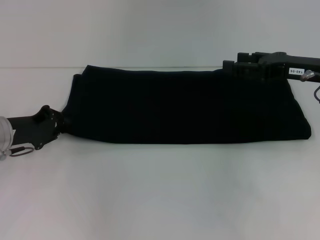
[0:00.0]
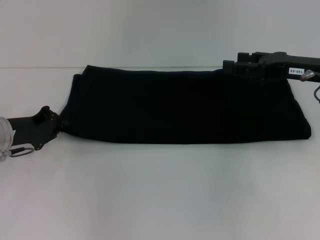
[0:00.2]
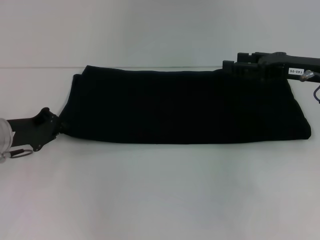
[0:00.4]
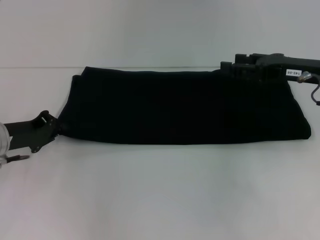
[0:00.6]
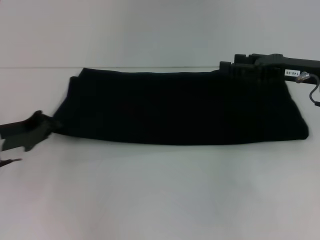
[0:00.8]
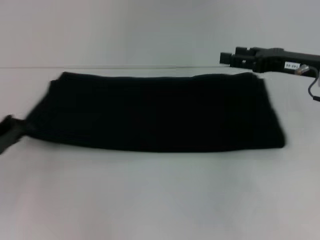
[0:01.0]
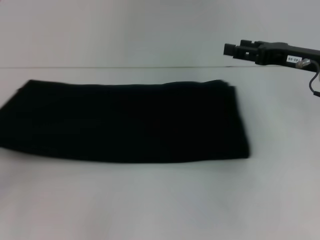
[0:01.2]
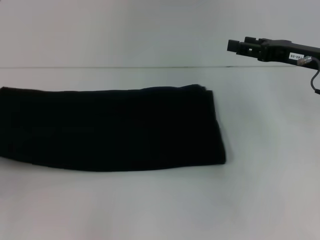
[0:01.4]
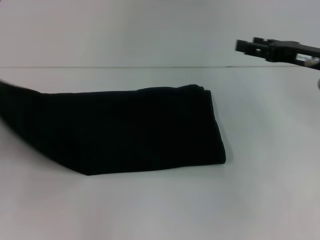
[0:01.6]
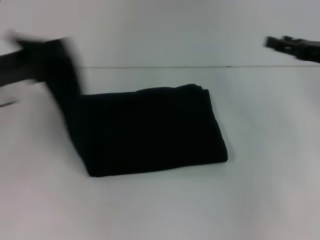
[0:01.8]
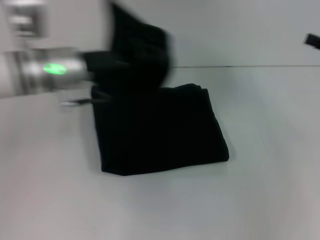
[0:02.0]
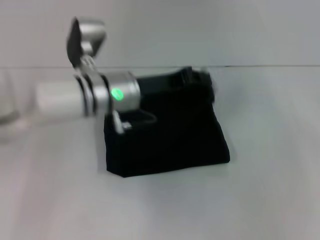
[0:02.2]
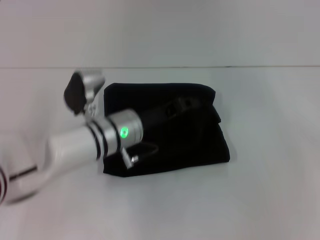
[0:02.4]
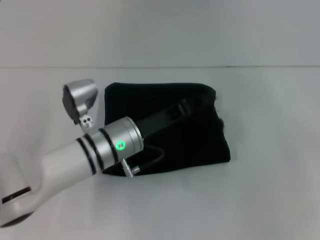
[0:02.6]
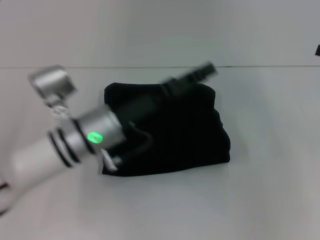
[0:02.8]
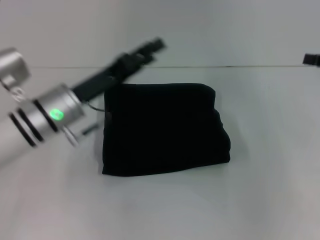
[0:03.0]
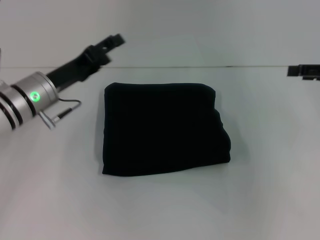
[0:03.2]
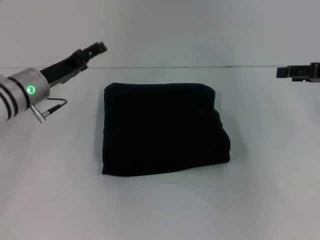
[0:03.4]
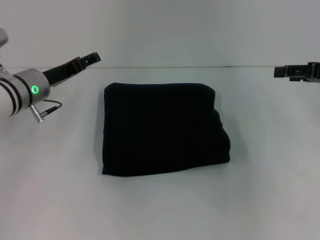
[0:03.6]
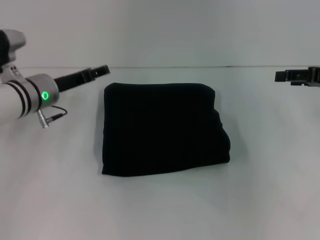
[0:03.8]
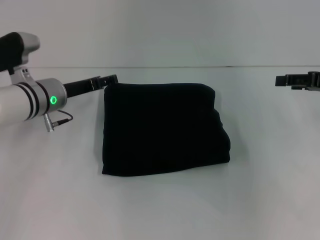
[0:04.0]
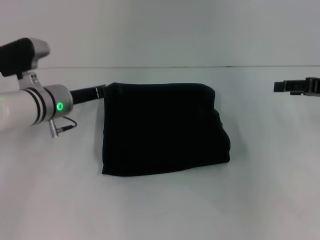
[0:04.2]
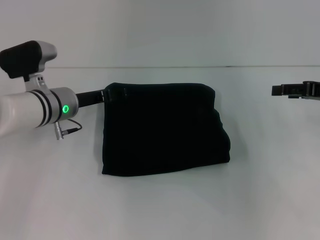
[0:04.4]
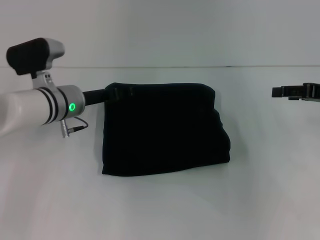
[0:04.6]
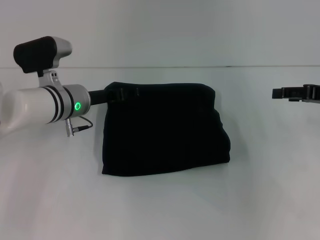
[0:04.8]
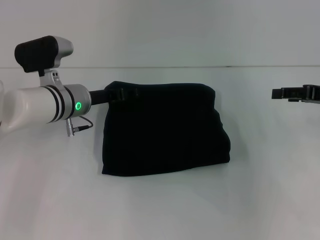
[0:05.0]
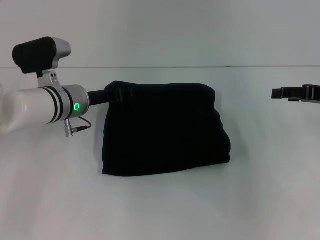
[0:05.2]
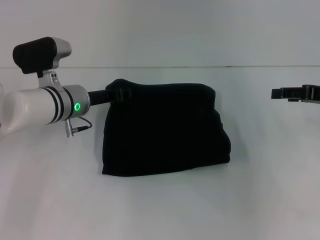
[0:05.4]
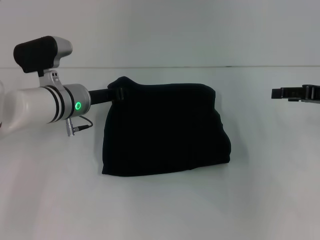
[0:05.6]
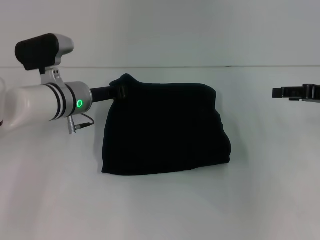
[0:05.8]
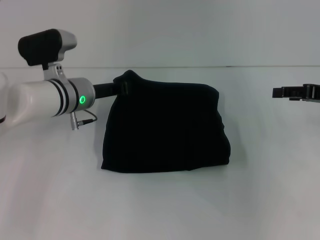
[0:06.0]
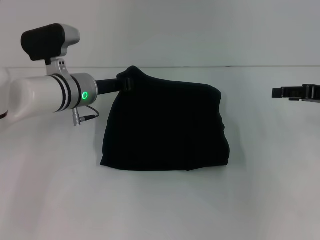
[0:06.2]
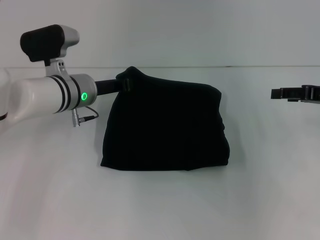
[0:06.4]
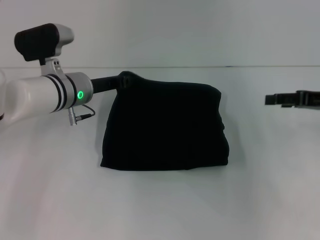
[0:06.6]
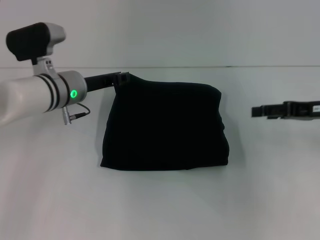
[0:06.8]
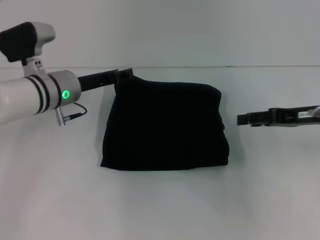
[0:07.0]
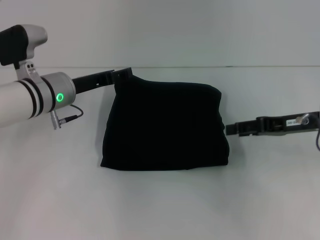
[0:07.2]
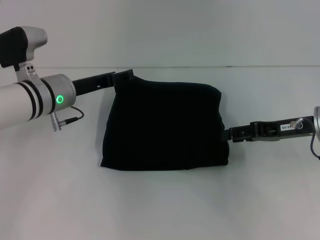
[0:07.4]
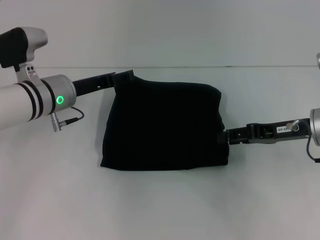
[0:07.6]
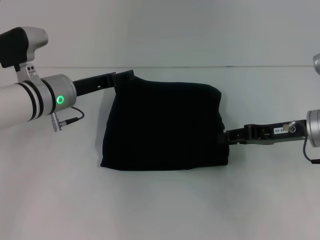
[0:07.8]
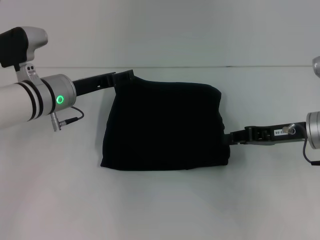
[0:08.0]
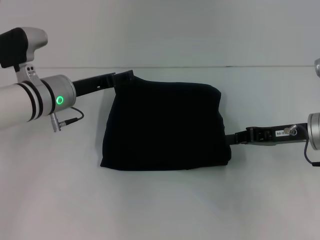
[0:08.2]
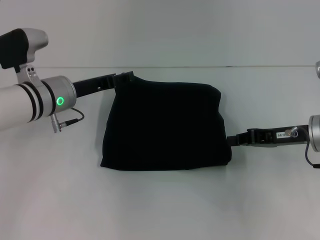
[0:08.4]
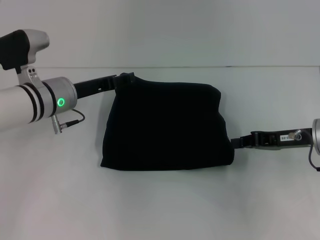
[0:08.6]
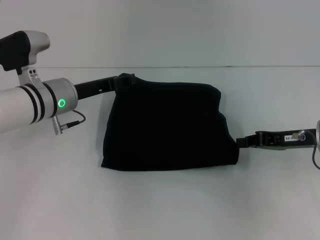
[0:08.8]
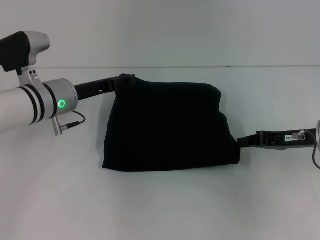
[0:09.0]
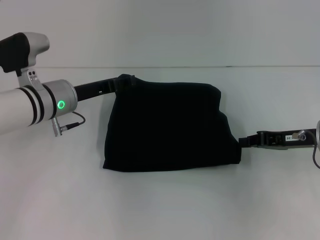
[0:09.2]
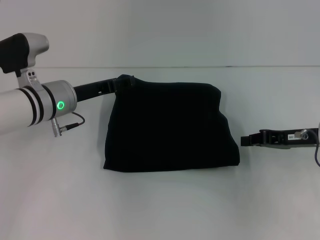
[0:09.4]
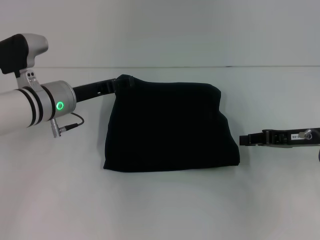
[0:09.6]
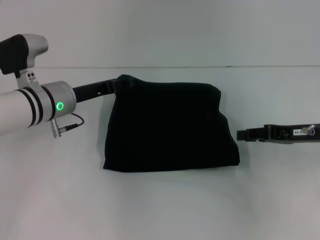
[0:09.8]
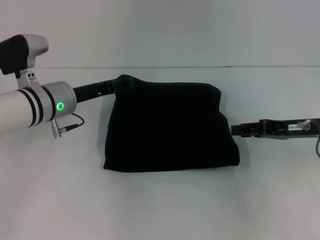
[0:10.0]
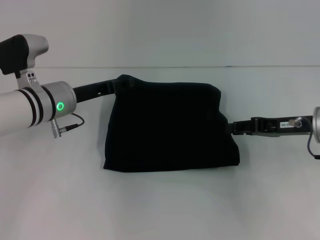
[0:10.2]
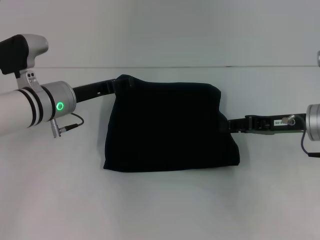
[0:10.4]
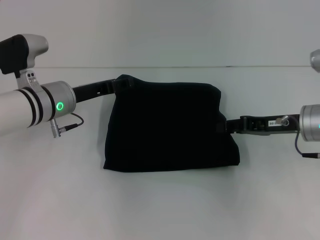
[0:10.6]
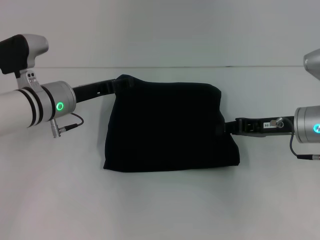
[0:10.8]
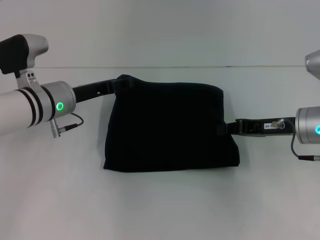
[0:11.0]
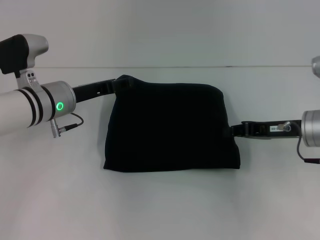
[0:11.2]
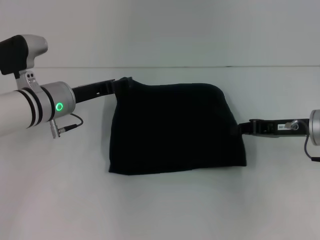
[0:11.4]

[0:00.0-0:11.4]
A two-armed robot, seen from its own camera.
Step, 0:00.0 to 0:02.6: Fold the clothes with your left hand.
0:00.0 to 0:01.4: The left gripper moves to the left and backward, approximately 15 cm, and closes its fingers.
0:01.4 to 0:02.8: The left gripper moves to the right, about 30 cm; the right gripper moves to the right, roughly 10 cm.
0:02.8 to 0:04.2: The right gripper changes place by roughly 5 cm. Meanwhile the left gripper heads forward and to the left, covering approximately 10 cm, and opens its fingers.
0:04.2 to 0:05.6: The left gripper closes its fingers.
0:05.6 to 0:07.2: The left gripper closes and opens again; the right gripper goes approximately 5 cm to the left.
0:07.2 to 0:08.6: The right gripper closes its fingers.
0:08.6 to 0:10.0: The right gripper opens up.
0:10.0 to 0:11.4: The right gripper closes.

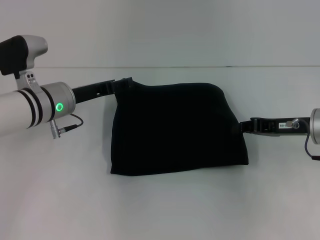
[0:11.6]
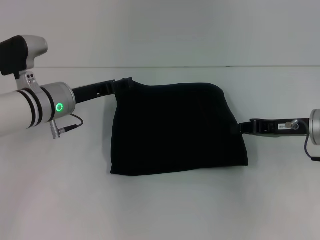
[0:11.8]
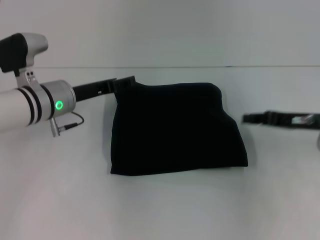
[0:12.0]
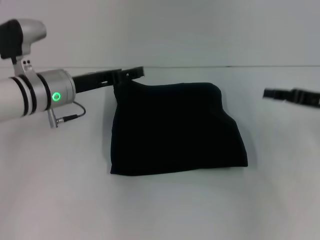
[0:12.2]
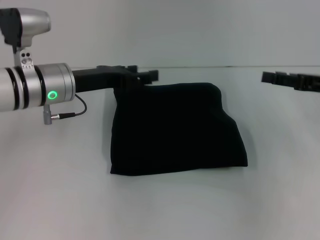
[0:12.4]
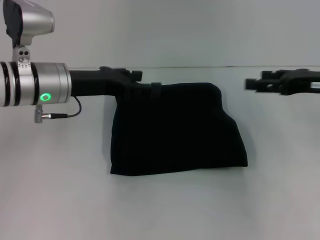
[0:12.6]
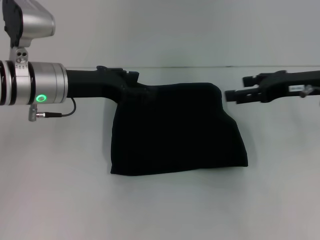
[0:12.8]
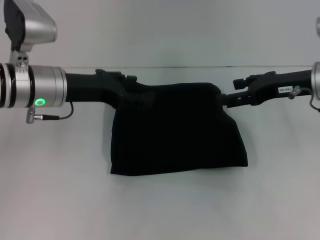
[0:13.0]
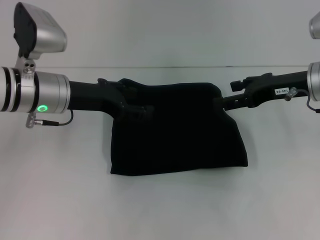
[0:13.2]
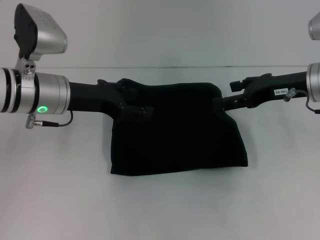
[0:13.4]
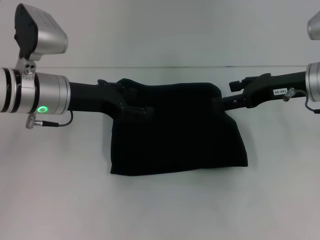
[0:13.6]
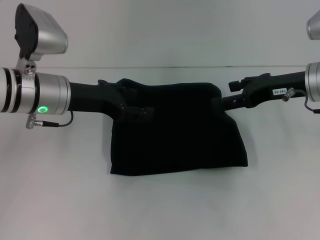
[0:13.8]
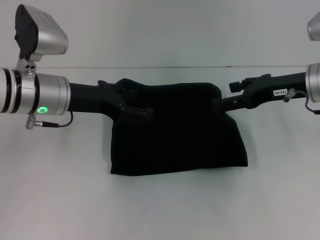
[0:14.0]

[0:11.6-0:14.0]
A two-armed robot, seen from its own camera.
0:11.6 to 0:12.8: Both grippers move upward, about 5 cm. The right gripper opens.
0:12.8 to 0:14.0: The grippers move only a little.

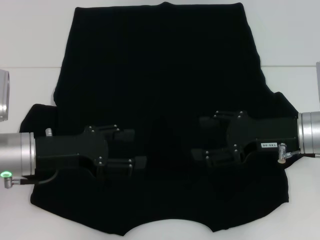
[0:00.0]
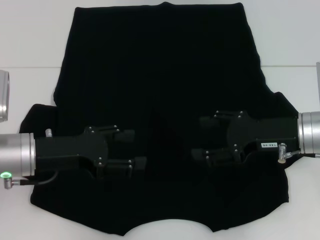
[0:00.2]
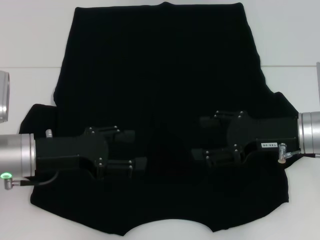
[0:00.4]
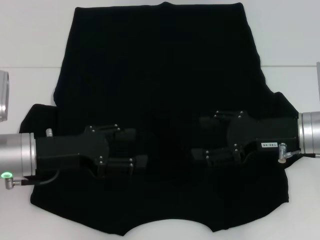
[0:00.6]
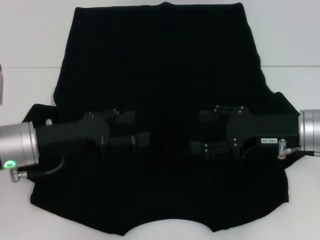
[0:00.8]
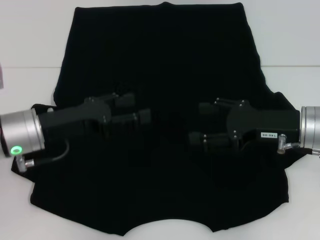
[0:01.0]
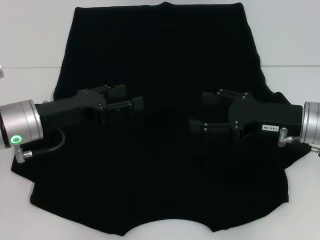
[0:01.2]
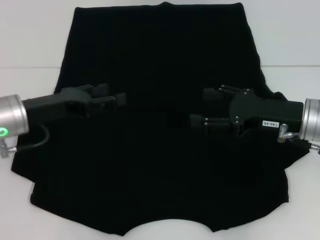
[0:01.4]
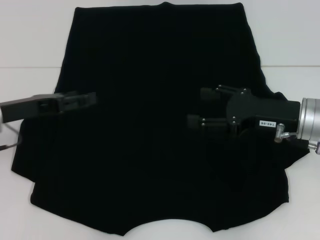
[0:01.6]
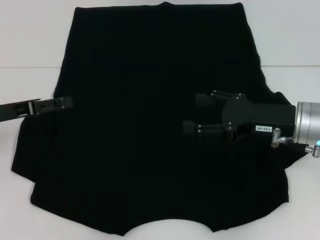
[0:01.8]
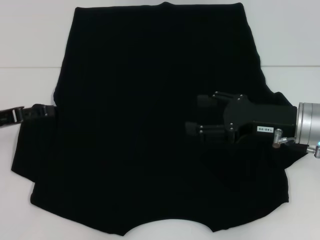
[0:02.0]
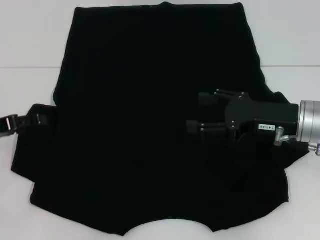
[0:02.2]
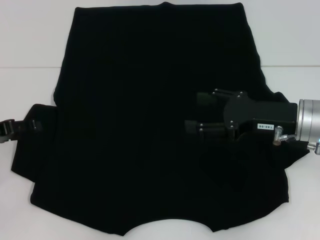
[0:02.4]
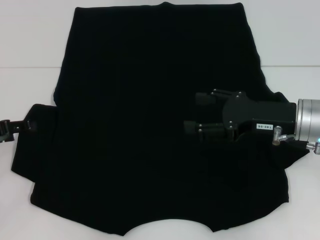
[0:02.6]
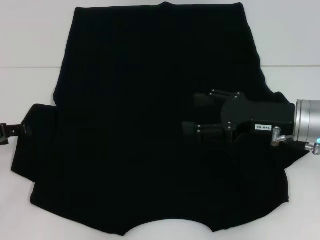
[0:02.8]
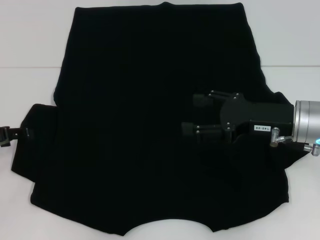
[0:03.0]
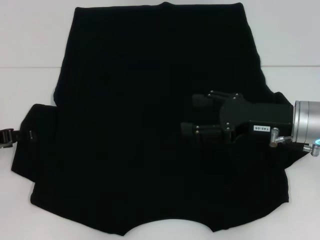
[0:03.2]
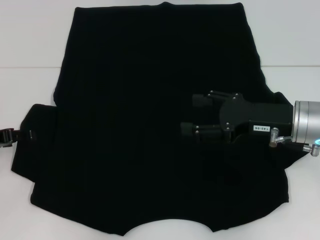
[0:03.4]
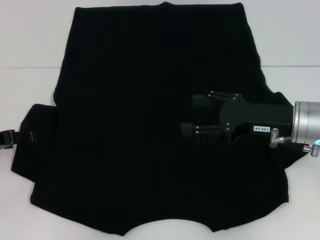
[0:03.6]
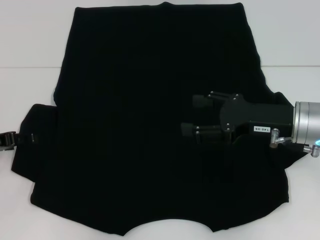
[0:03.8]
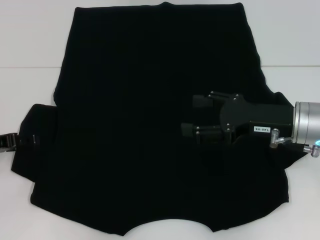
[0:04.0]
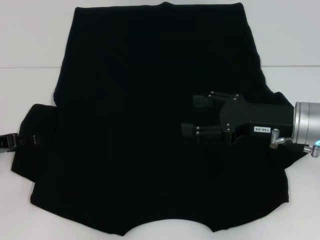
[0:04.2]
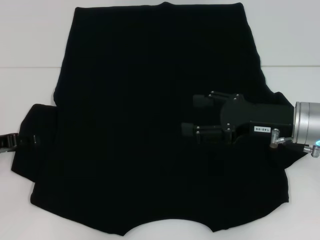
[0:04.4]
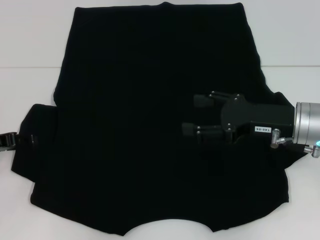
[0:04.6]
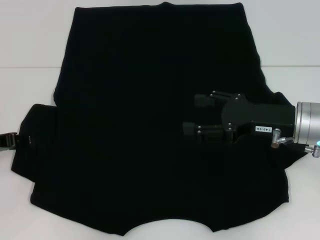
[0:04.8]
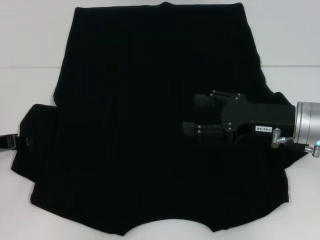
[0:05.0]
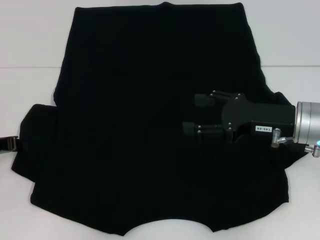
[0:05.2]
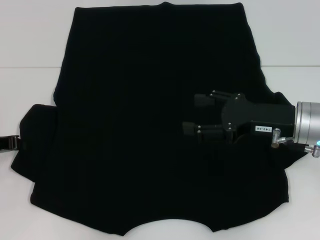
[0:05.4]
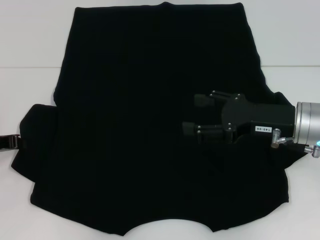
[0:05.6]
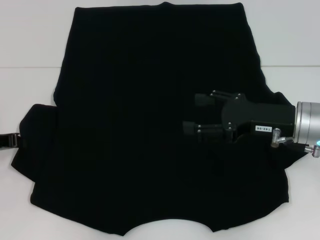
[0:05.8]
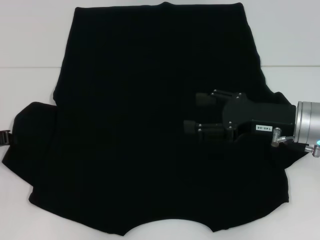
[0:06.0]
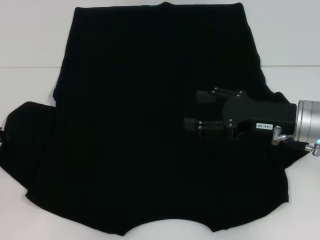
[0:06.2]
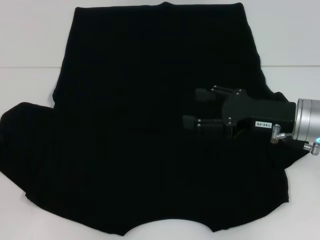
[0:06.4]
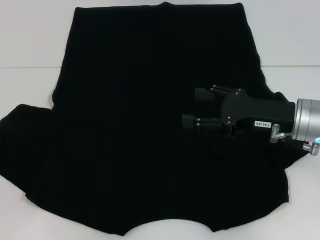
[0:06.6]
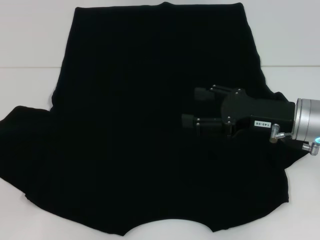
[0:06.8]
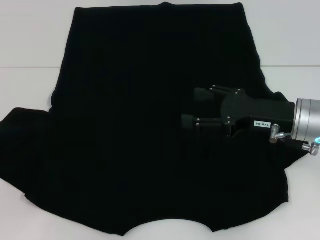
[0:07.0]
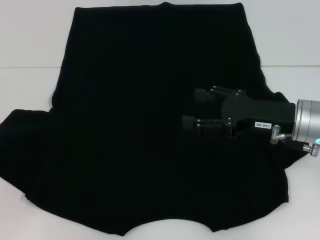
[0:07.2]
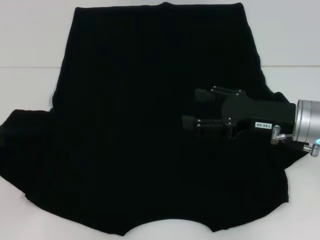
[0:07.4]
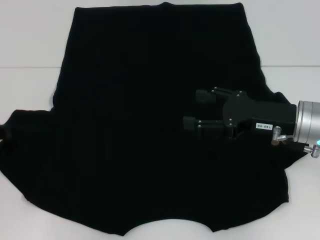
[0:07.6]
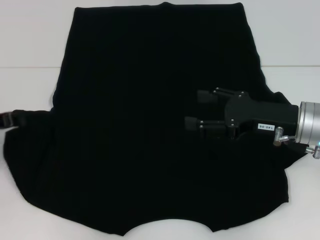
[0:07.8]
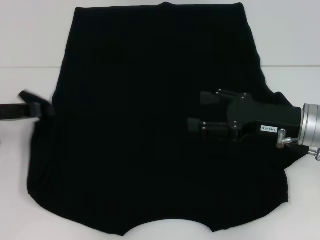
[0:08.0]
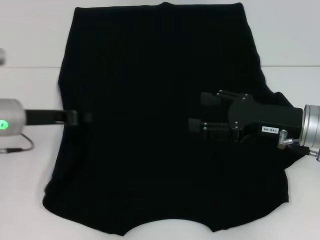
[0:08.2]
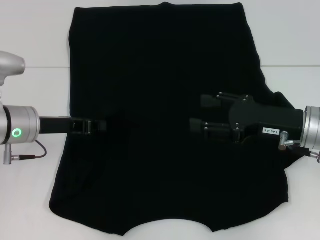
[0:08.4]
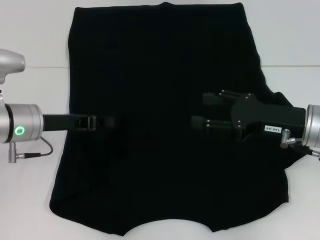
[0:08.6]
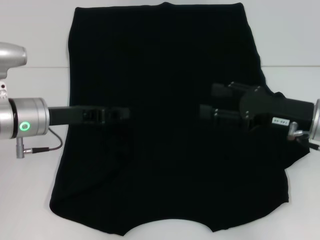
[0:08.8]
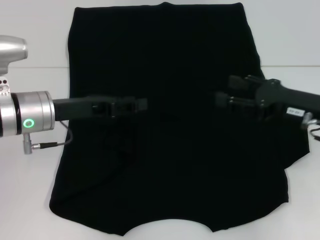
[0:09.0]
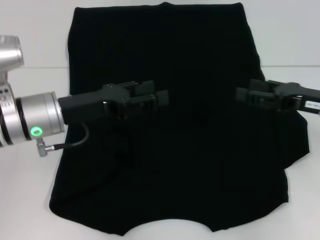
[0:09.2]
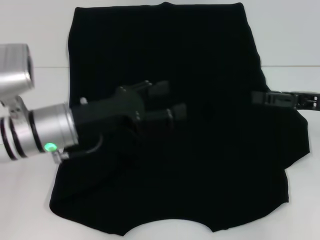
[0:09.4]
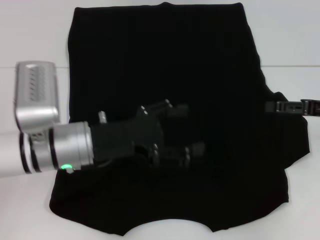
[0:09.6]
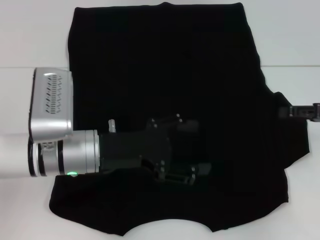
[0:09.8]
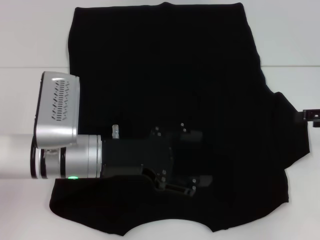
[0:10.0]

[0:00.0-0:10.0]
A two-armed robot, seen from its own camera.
Step, 0:00.0 to 0:09.4: Fold the bottom left sleeve with your left hand.
0:01.4 to 0:02.8: The left gripper moves to the left, some 10 cm.
0:02.8 to 0:04.2: The grippers make only small movements.
0:05.8 to 0:07.2: There are only small adjustments of the grippers.
0:07.2 to 0:08.6: The left gripper heads to the right, covering roughly 15 cm.
0:08.6 to 0:10.0: The grippers both shift to the right by roughly 10 cm. The left gripper opens its fingers.
